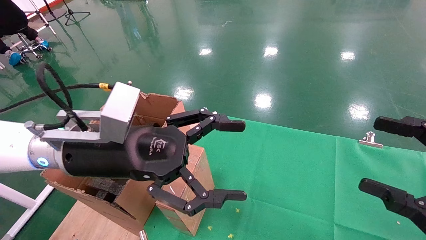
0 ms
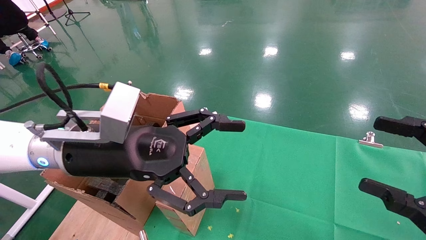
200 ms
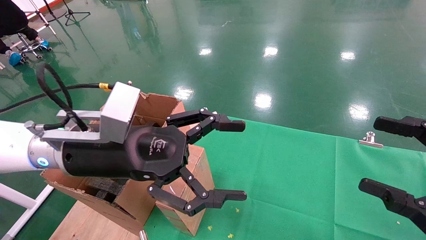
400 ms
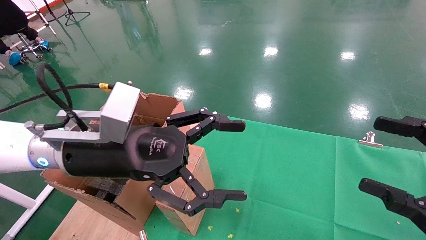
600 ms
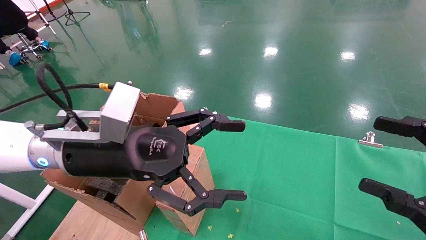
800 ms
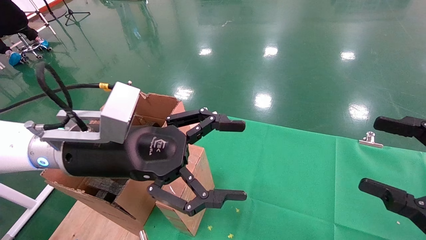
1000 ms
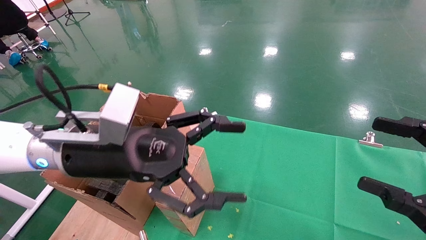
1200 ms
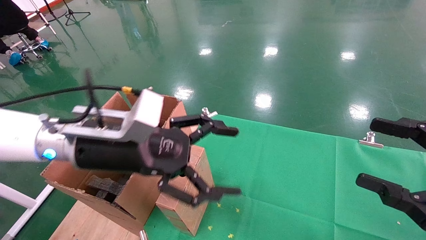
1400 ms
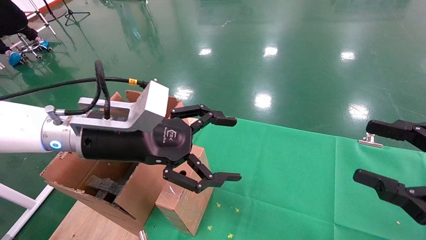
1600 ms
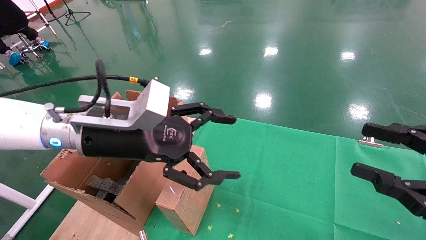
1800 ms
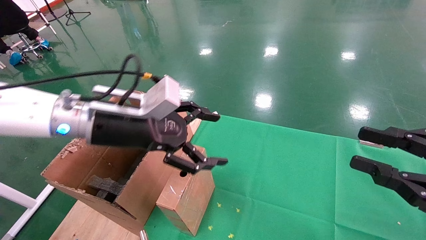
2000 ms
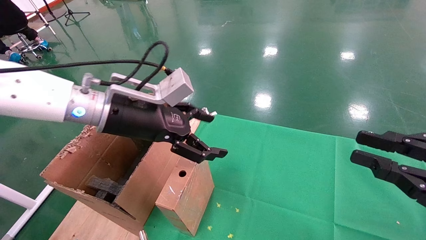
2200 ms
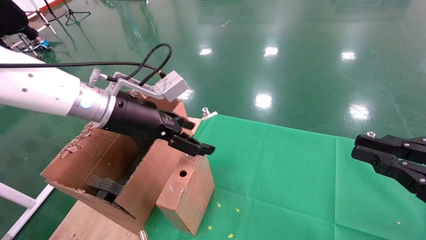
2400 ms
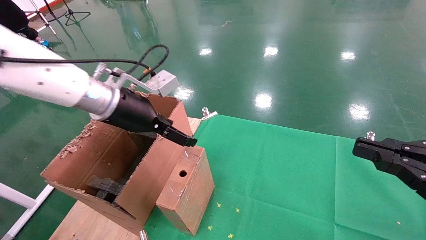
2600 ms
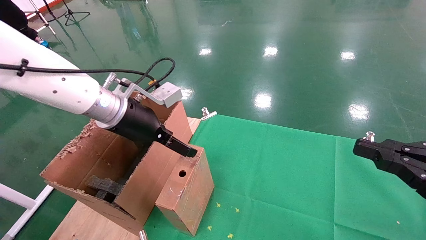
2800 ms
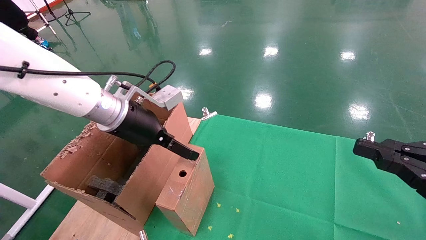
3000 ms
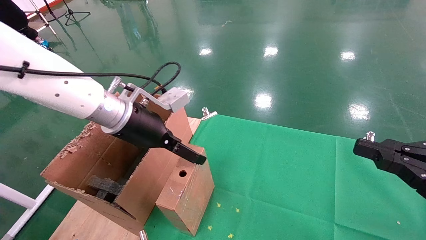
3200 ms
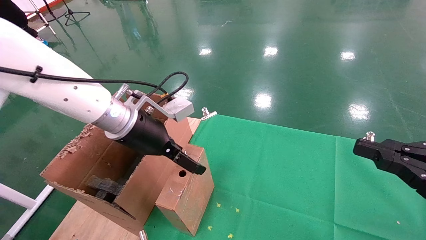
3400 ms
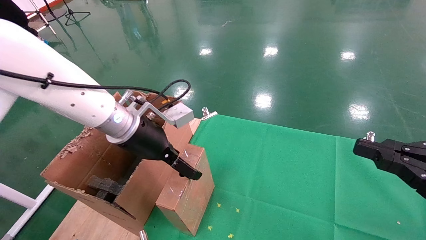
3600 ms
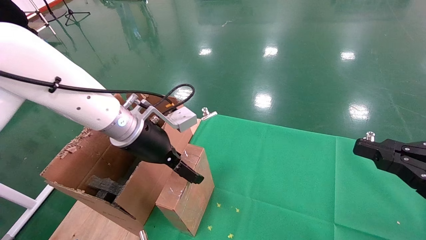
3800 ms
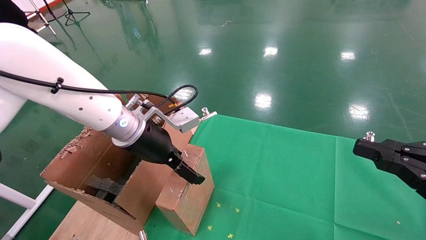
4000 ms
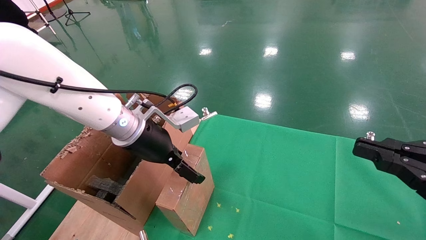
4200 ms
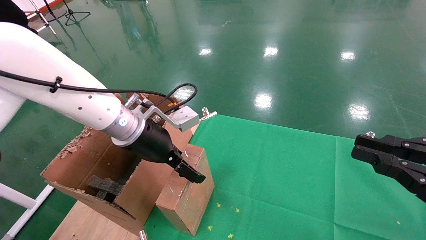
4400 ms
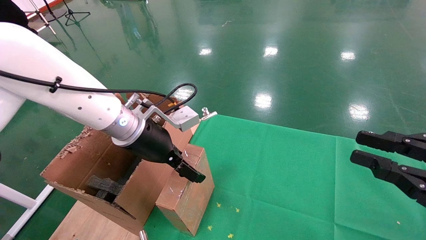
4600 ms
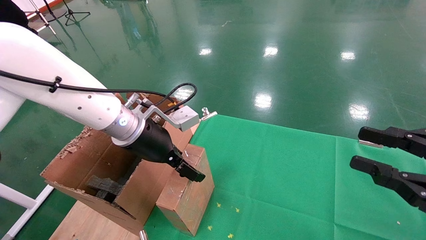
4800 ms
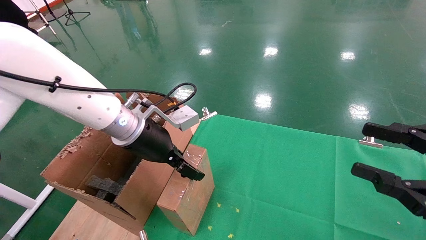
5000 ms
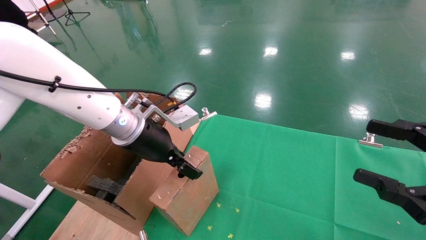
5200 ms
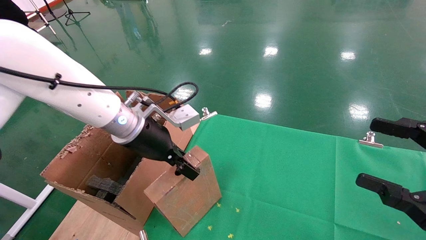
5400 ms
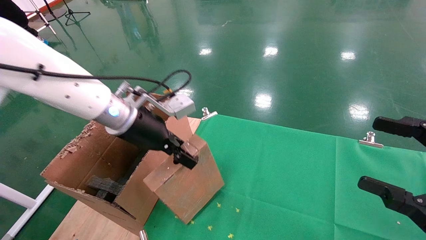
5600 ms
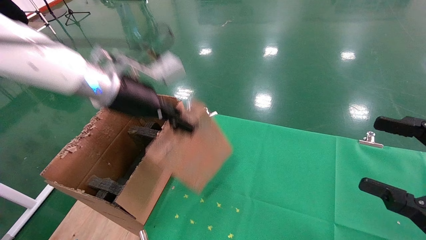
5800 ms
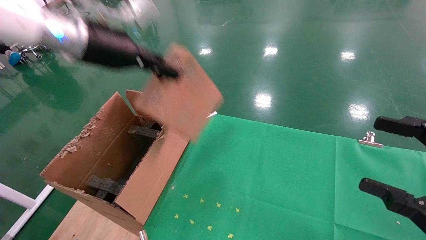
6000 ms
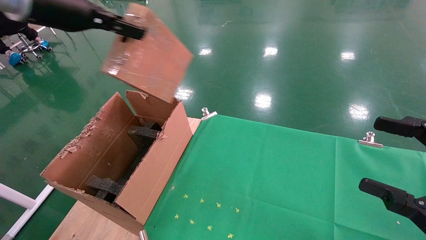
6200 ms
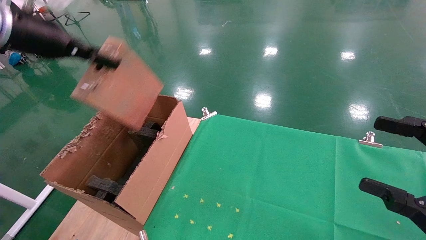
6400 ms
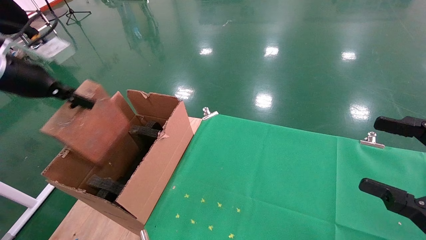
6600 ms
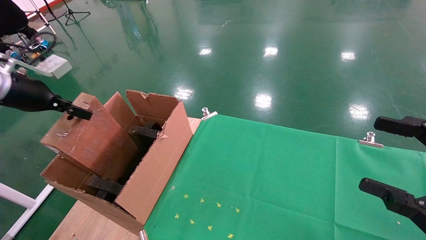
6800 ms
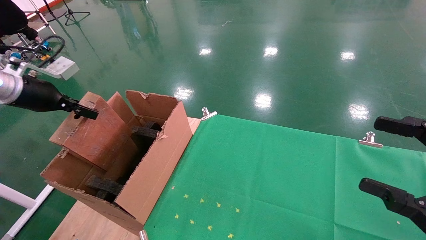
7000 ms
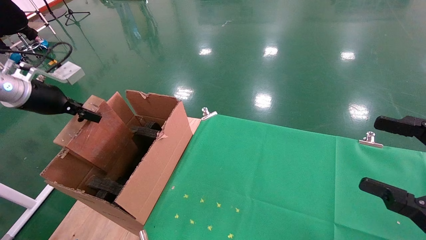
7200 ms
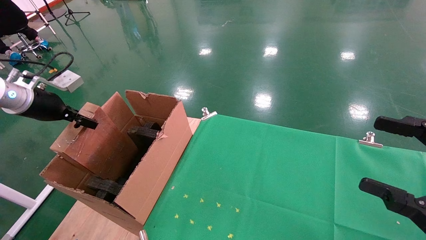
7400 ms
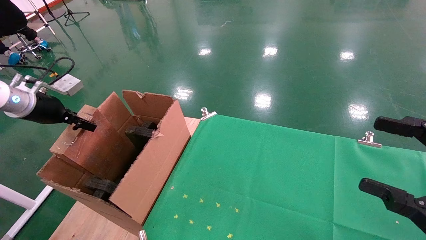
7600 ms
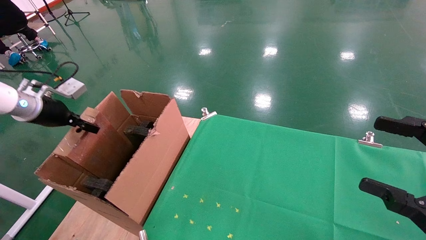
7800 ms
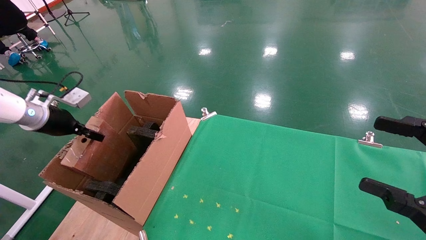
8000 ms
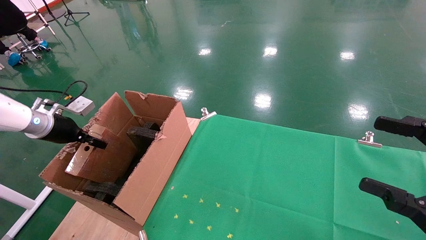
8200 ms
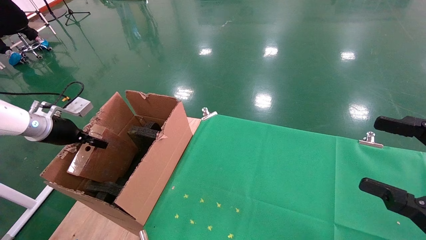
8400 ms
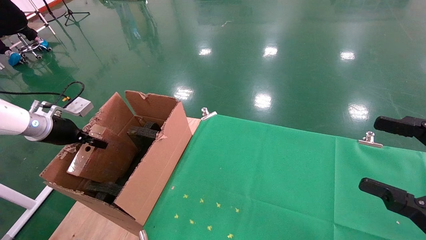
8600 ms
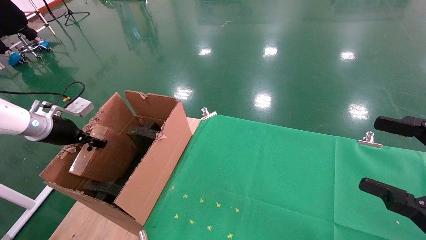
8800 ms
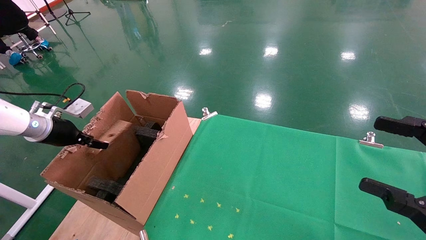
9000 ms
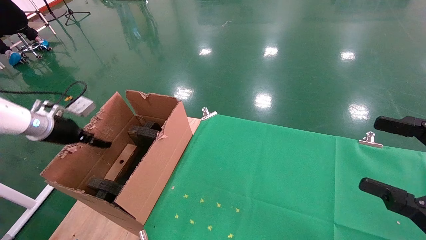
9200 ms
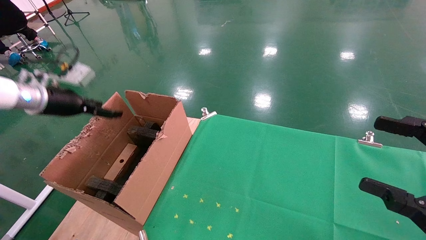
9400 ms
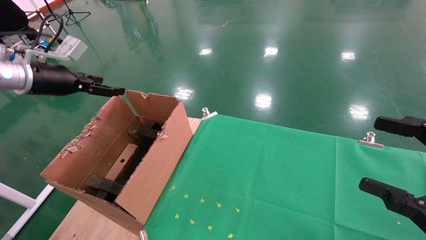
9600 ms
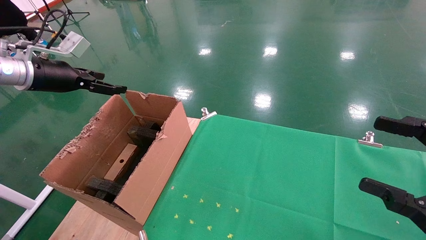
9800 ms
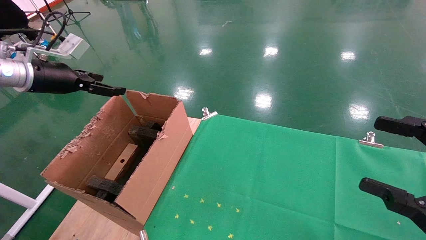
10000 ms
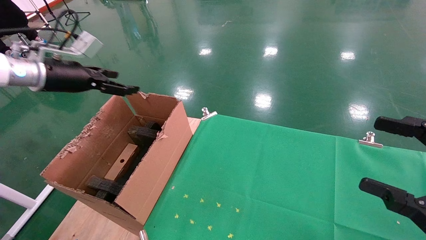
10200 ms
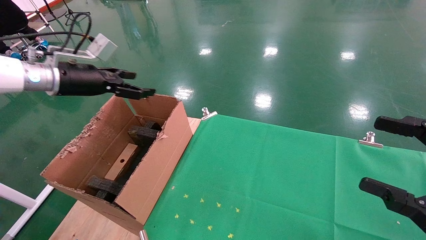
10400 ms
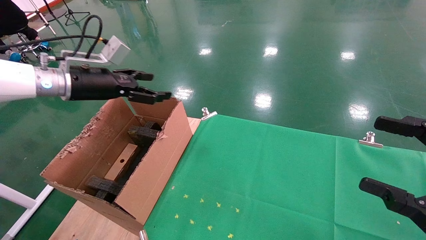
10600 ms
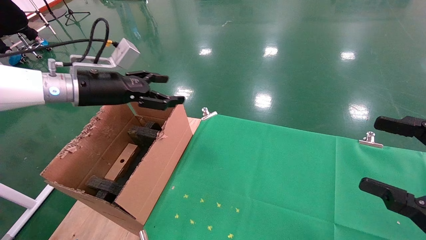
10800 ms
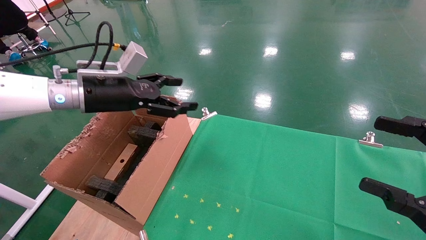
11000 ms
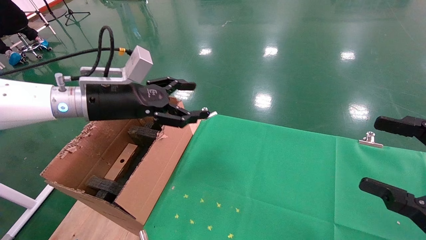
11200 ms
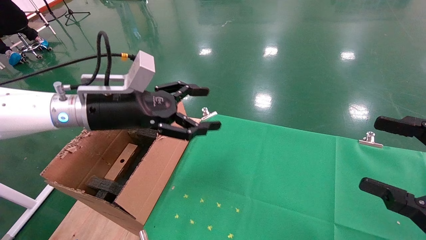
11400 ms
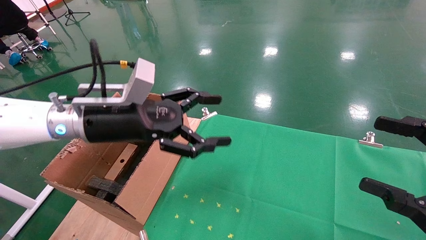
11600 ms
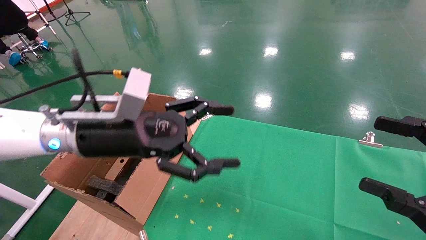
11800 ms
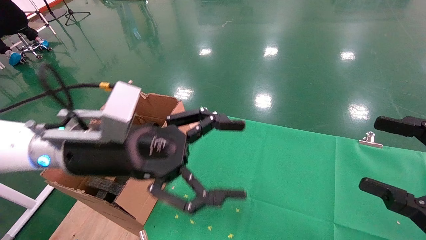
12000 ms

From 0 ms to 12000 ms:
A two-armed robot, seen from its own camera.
Task of the whole recording: using a robotic arm to pick up a cardboard box and palace it the carton.
Step, from 1400 ms to 5200 ms: Pick up the mouse and the power cord paper box.
Step, from 5400 ms to 8800 ms: Place the mouse and the power cord paper box into the container.
From 0 ms to 1600 ms: The grippers make only small movements.
From 1600 ms to 3000 ms: The left gripper is displaced forward by some 5 cm. Meanwhile the right gripper closes up.
From 3000 ms to 4400 ms: The grippers make only small movements.
From 4400 ms to 6000 ms: The left gripper is displaced upward and to the left by roughly 20 cm, and closes. The right gripper opens.
From 6000 ms to 7600 ms: The left gripper shifts roughly 25 cm to the left and downward.
From 7600 ms to 9000 ms: The left gripper heads downward, covering about 5 cm.
From 9000 ms to 10400 ms: The left gripper moves to the right and upward, some 15 cm, and opens up.
From 10400 ms to 12000 ms: The left gripper travels to the right and backward by roughly 20 cm.

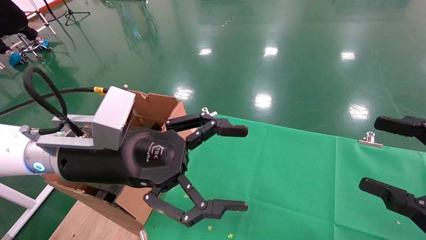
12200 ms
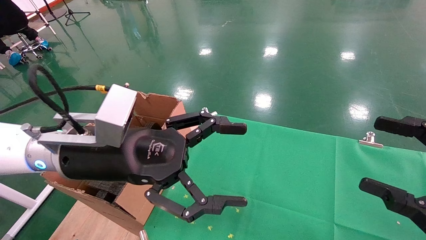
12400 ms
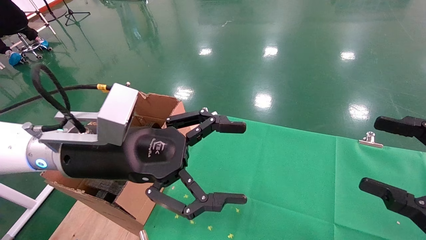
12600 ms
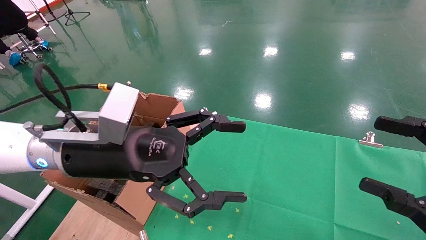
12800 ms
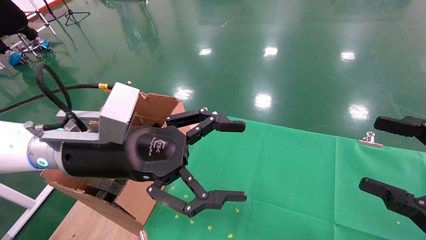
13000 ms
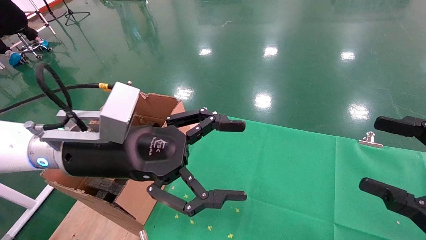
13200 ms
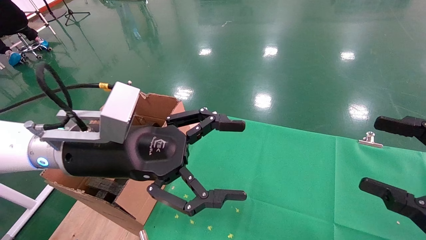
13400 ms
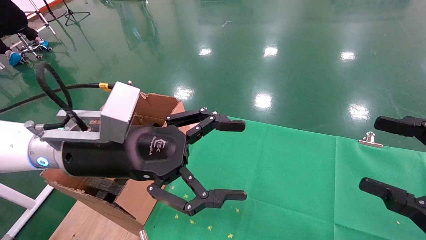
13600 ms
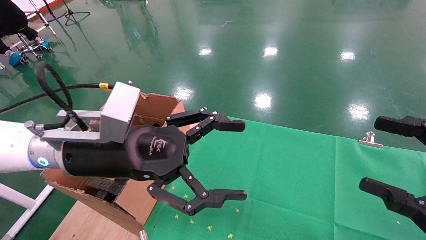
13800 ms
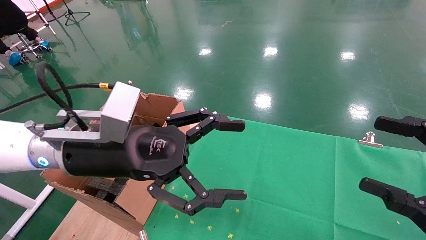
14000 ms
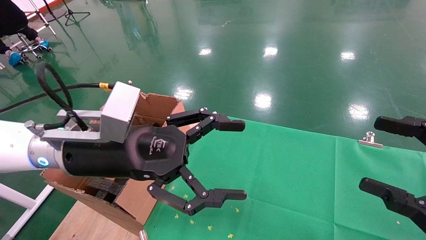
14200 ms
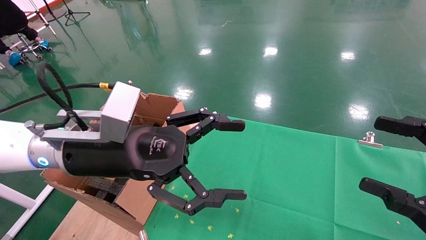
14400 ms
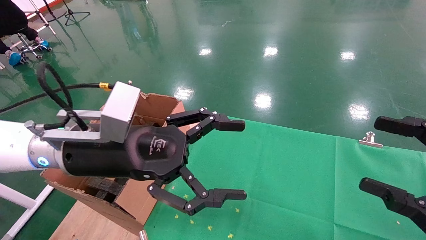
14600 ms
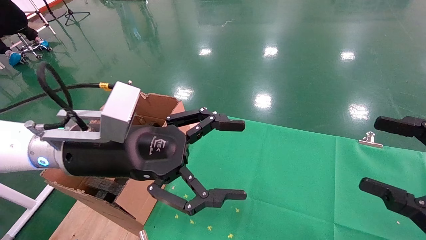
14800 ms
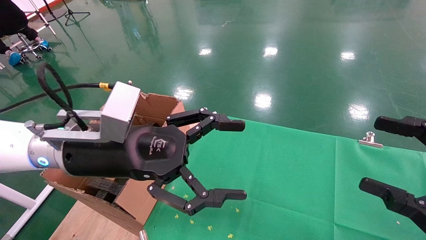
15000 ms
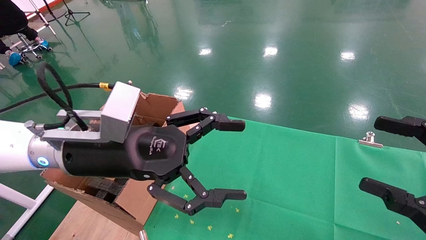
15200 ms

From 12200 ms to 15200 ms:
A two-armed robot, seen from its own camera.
Task of the whole recording: using a robotic arm to pick up a cardboard box and palace it the carton.
From 12200 ms to 15200 ms: Both grippers stay about where they are.

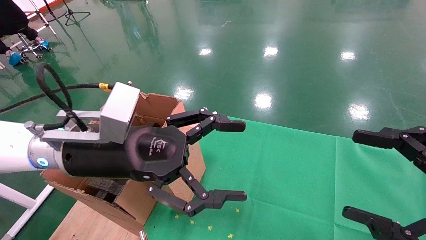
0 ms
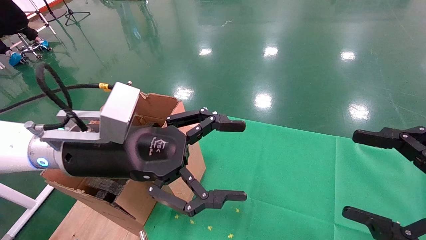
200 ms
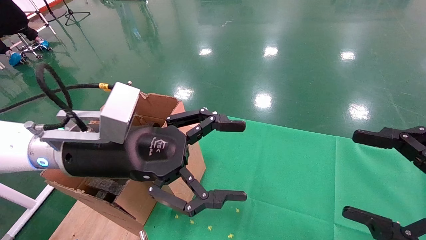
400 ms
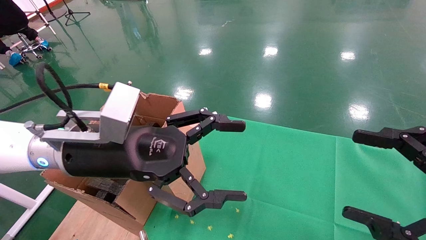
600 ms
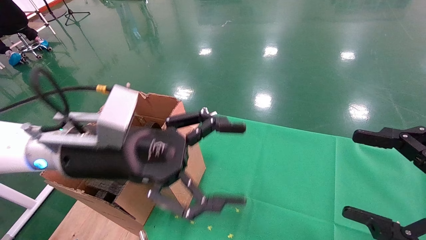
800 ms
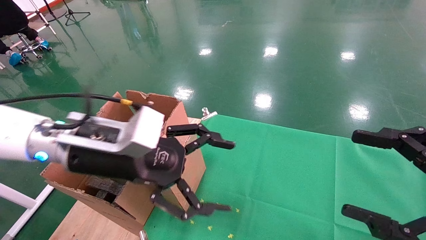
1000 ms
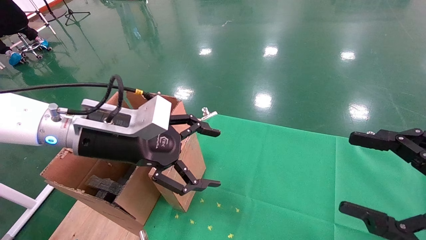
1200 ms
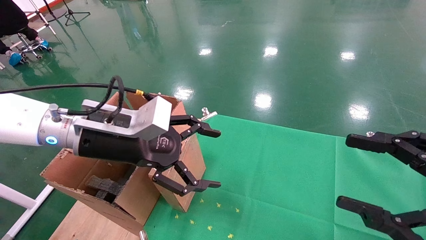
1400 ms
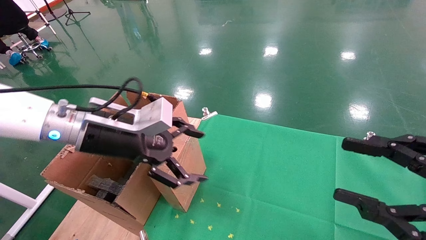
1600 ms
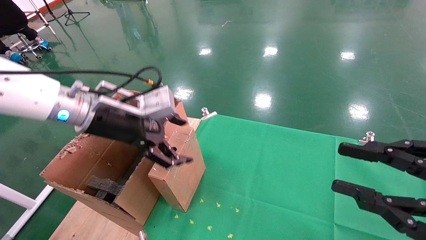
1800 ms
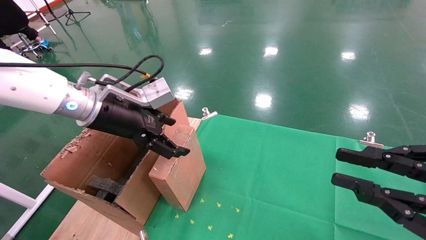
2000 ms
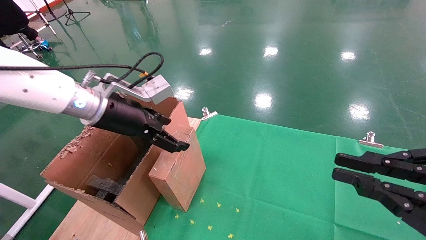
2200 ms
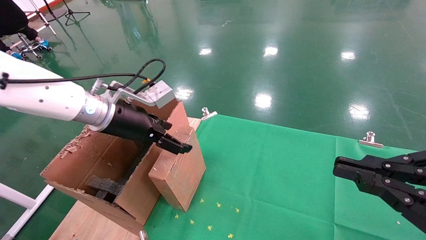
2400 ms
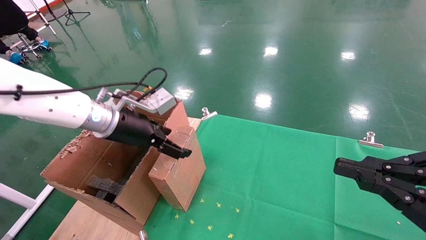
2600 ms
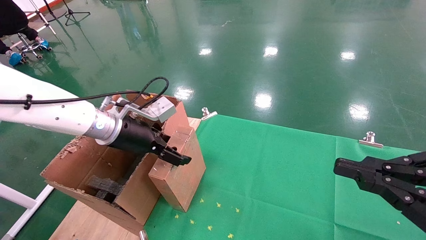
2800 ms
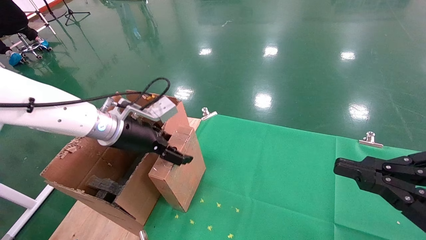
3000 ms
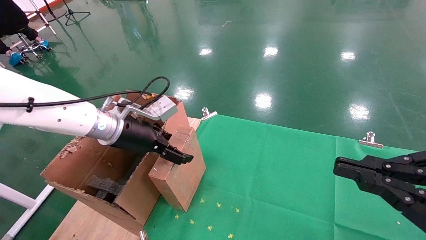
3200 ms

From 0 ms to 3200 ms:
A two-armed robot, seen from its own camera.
Task of the whole recording: using a robotic arm to pick up a cardboard box and palace it the carton.
From 0 ms to 1600 ms: The right gripper closes. The left gripper travels forward by about 5 cm.
From 1600 ms to 3200 ms: The right gripper closes. The left gripper heads forward, covering about 5 cm.
